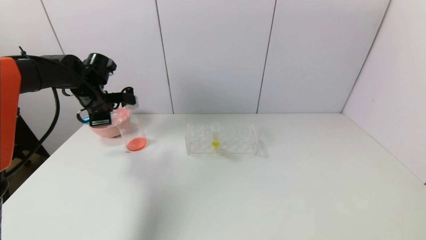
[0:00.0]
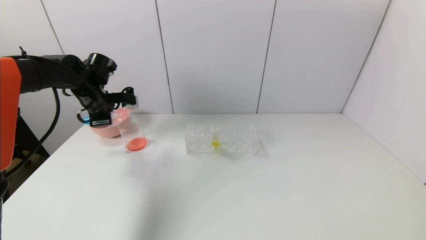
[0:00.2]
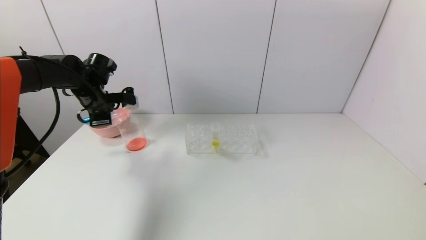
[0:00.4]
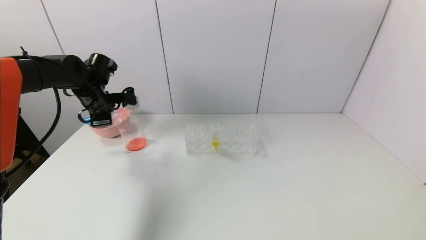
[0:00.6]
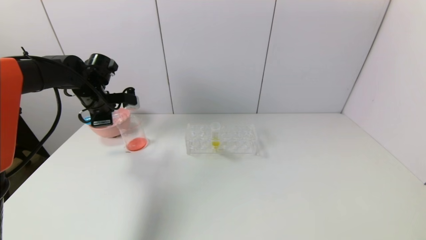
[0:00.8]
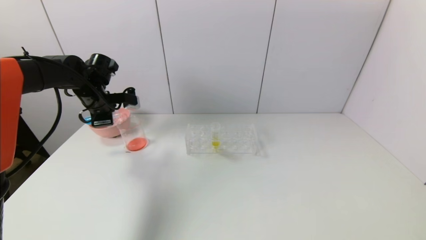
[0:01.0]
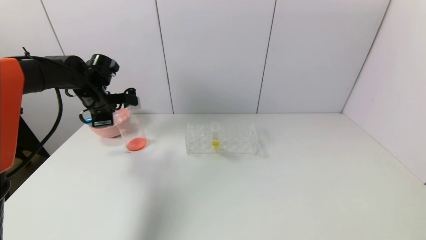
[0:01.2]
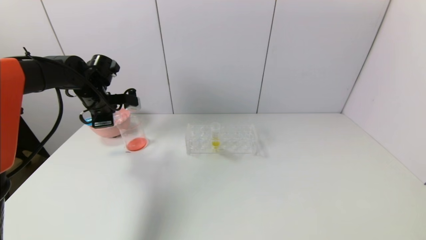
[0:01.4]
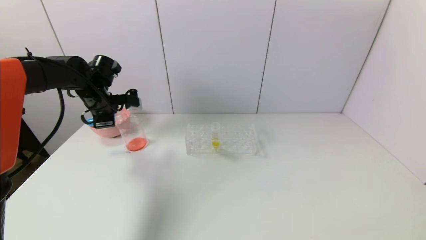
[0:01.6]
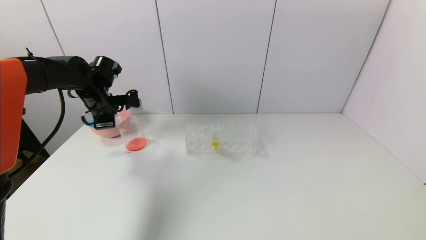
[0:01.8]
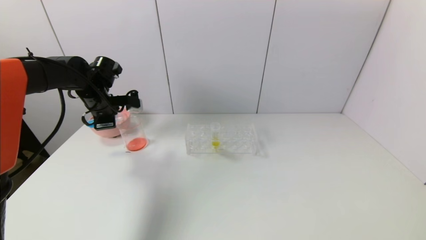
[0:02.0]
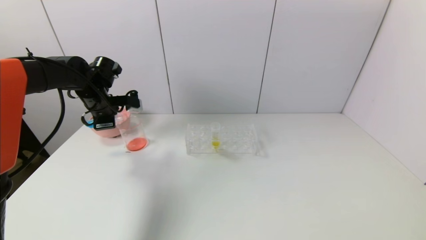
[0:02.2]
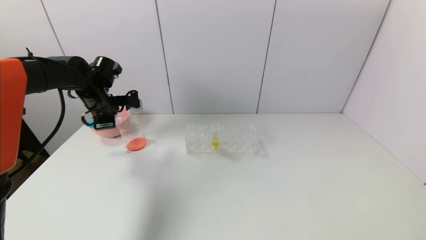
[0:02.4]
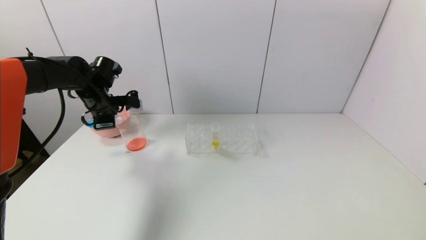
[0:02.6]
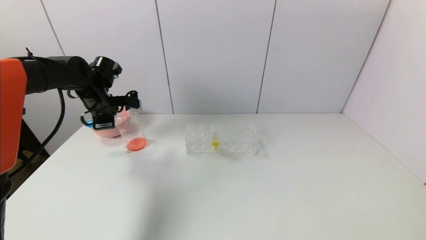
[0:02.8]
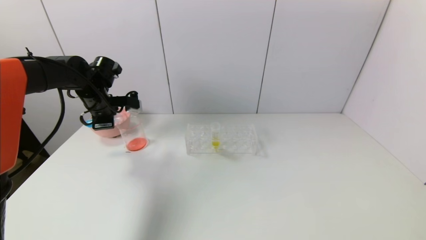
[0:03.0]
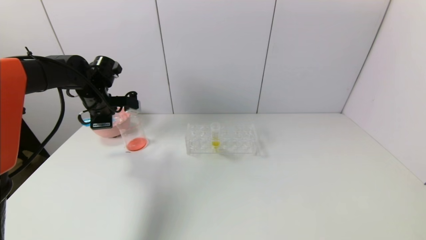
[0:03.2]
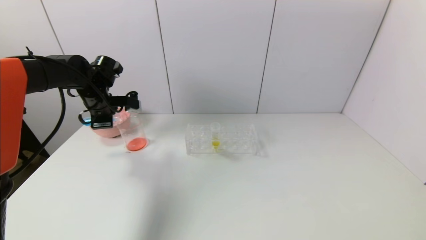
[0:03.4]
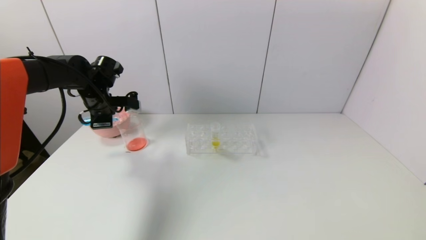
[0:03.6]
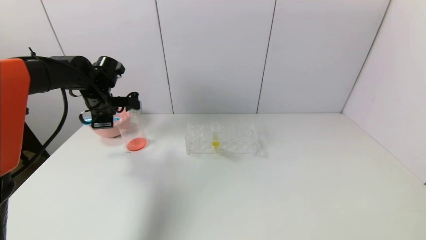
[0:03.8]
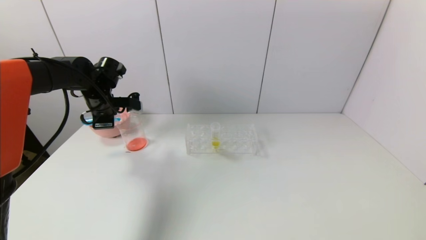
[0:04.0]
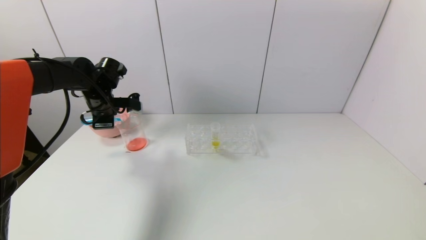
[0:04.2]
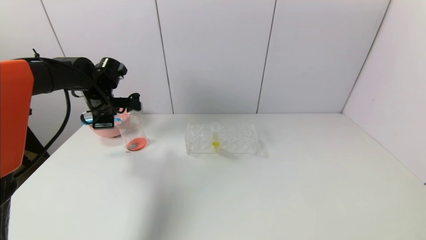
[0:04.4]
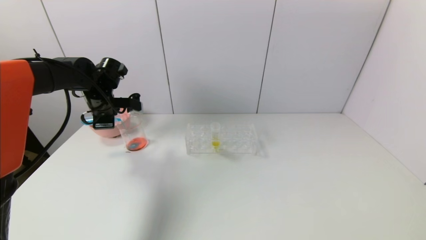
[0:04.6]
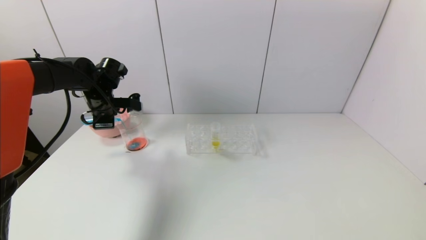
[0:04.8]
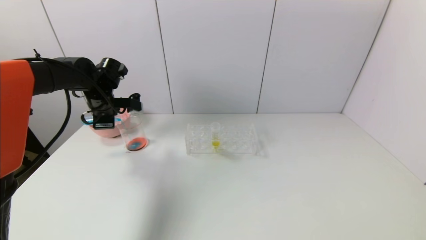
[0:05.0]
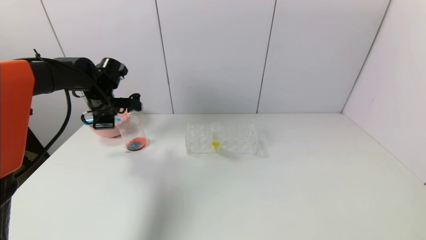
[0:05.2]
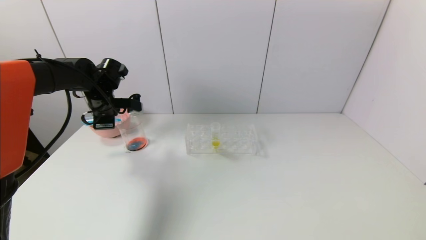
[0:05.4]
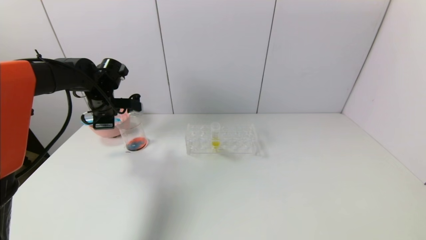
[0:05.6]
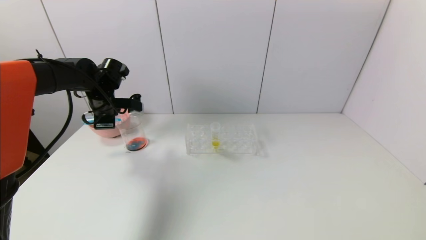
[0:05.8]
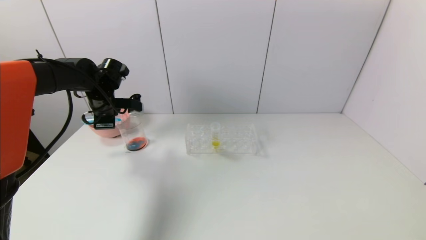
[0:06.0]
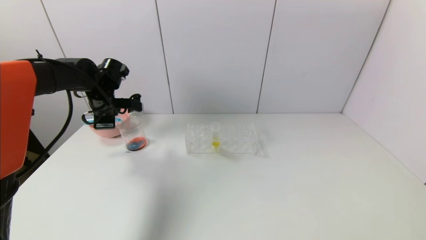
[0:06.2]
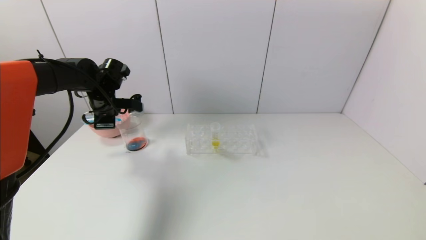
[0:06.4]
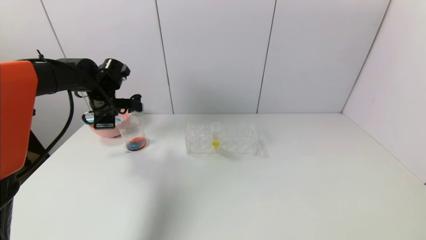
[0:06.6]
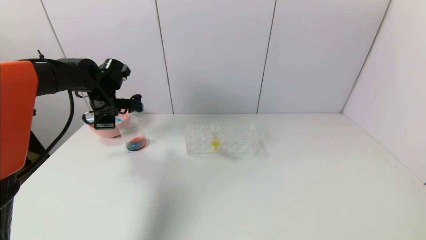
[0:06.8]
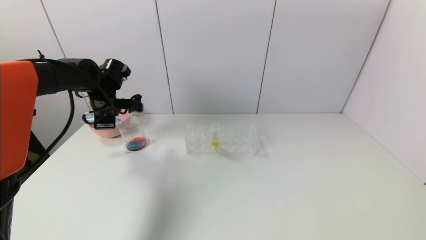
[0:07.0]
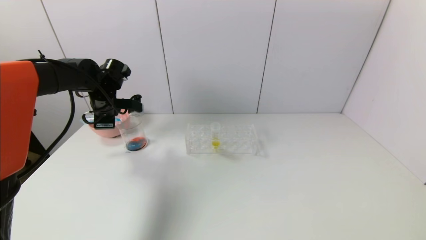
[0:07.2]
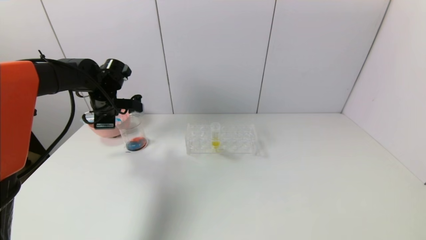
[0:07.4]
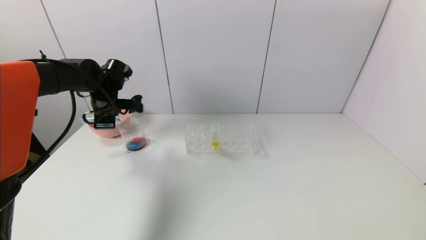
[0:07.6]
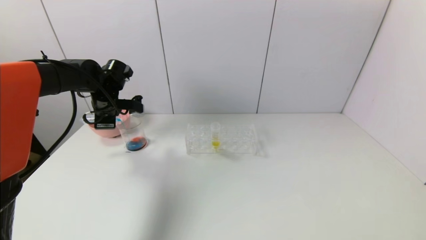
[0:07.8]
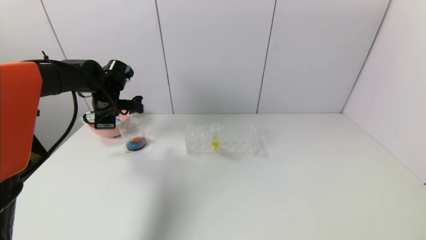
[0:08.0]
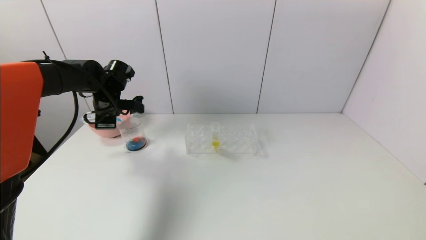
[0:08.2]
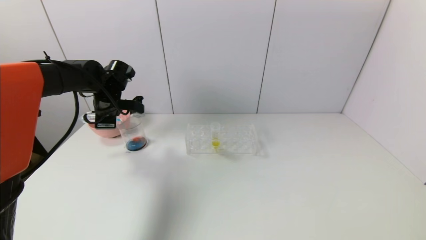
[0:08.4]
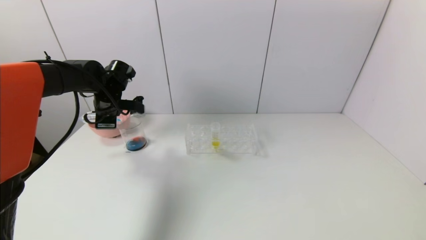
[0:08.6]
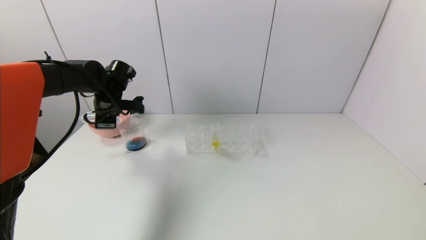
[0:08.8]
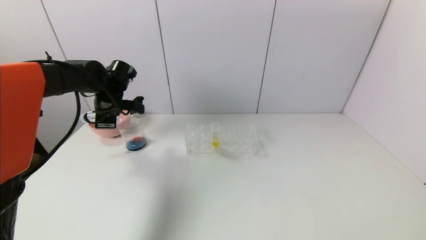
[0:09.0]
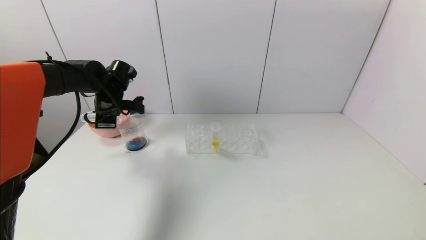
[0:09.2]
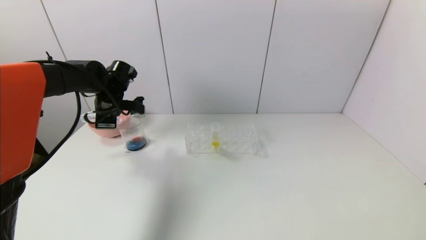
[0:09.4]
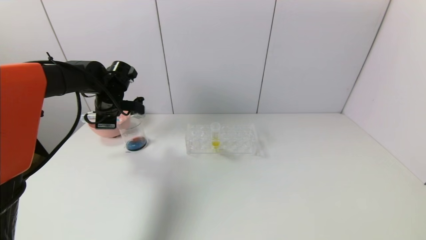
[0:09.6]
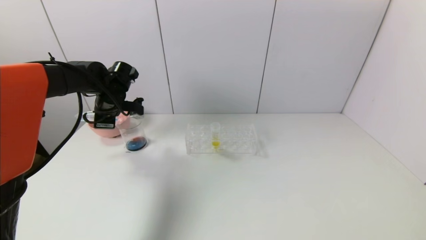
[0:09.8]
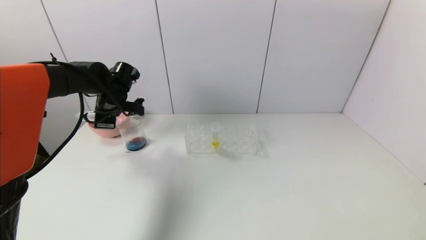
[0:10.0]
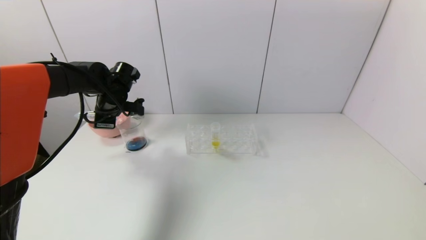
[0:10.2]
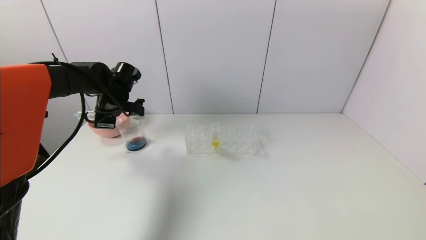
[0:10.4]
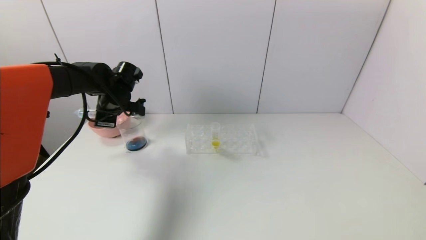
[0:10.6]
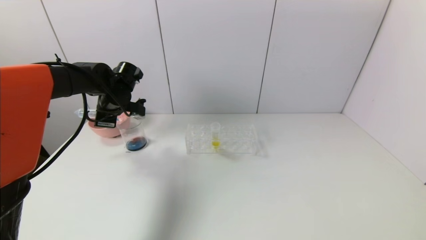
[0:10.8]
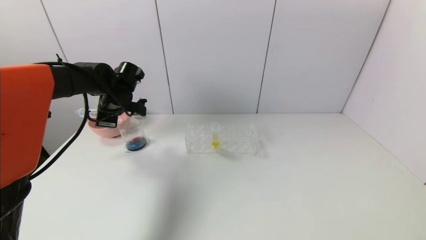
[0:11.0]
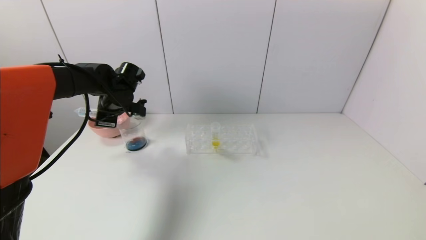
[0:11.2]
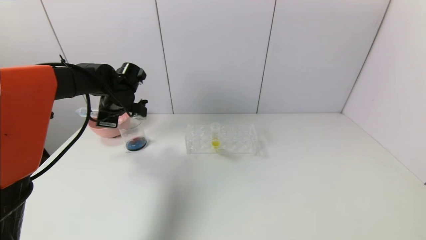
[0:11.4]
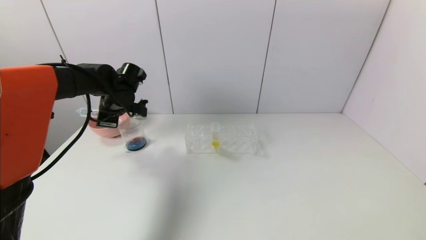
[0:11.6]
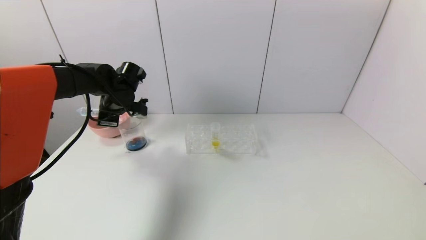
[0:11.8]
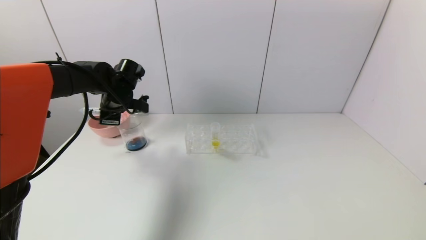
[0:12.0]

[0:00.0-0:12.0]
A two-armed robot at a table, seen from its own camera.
Task of the whole recording: pick up the test tube with red pigment and the test tube with blue pigment by grippers and pour them into the container.
0:00.0 to 0:03.0: Both grippers stay put.
0:03.0 to 0:04.4: The grippers make only small movements.
0:04.4 to 0:07.6: Both grippers stay put.
0:07.6 to 0:09.0: Neither gripper changes place.
0:09.0 to 0:10.4: There are only small adjustments of the grippers.
0:10.4 to 0:12.0: Both grippers stay about where they are.

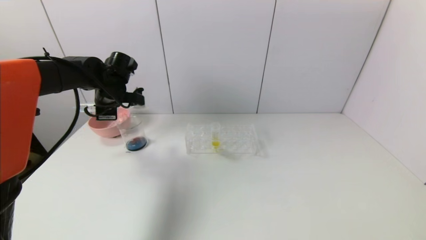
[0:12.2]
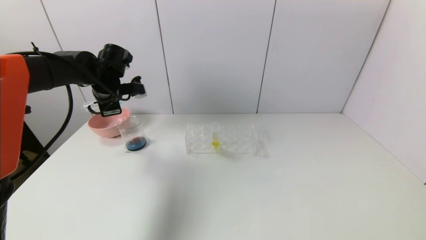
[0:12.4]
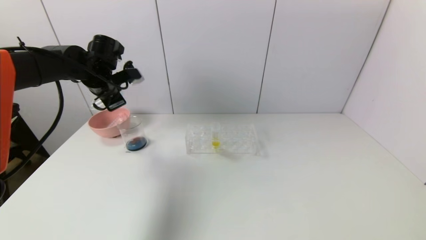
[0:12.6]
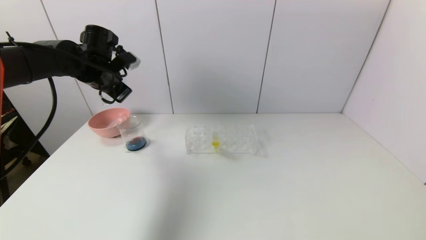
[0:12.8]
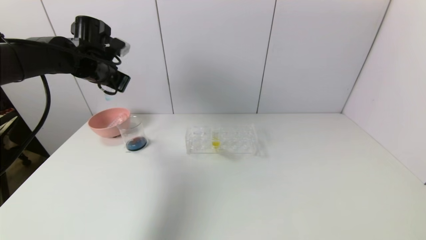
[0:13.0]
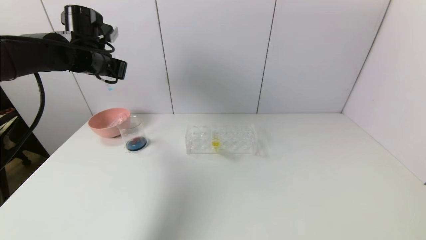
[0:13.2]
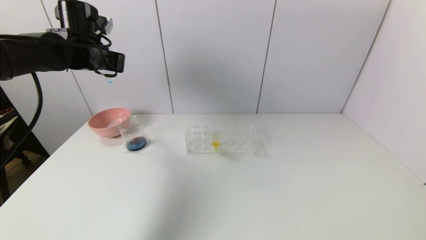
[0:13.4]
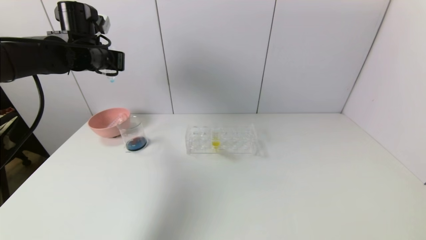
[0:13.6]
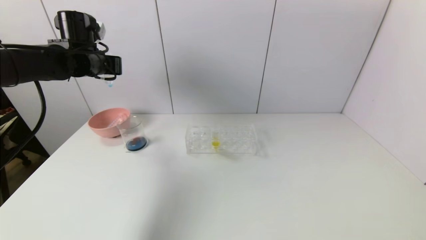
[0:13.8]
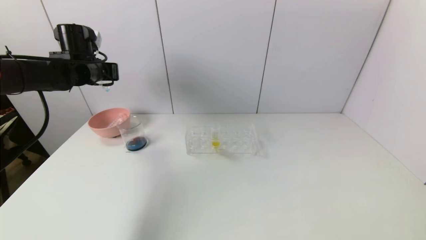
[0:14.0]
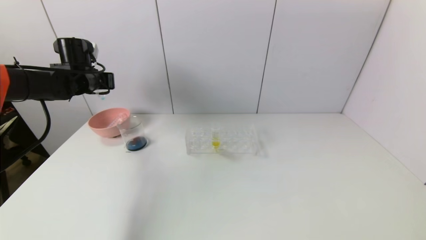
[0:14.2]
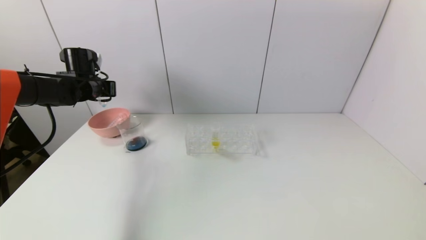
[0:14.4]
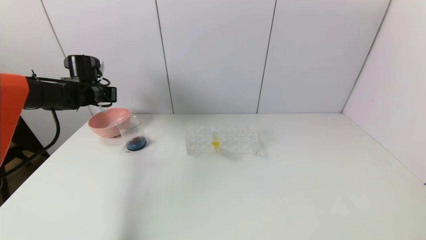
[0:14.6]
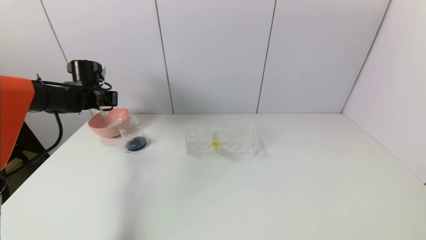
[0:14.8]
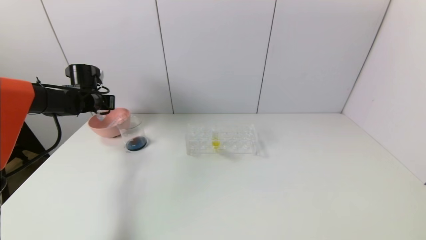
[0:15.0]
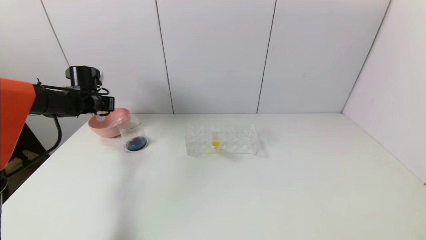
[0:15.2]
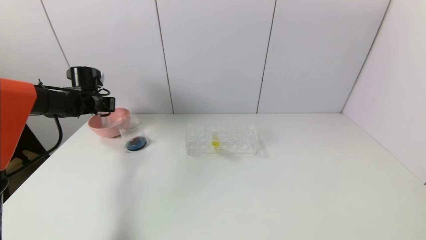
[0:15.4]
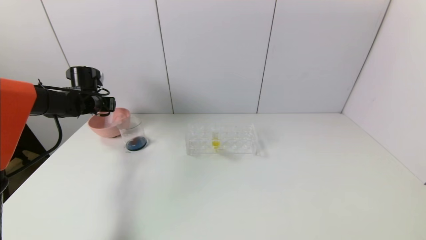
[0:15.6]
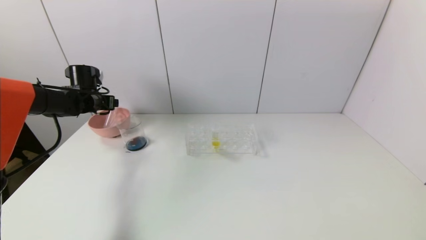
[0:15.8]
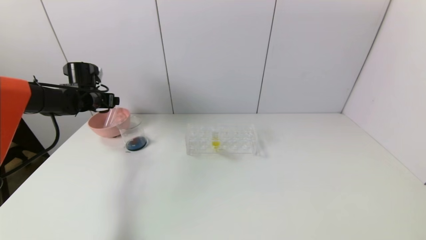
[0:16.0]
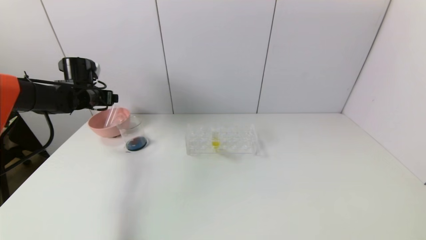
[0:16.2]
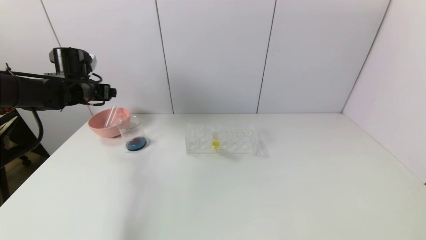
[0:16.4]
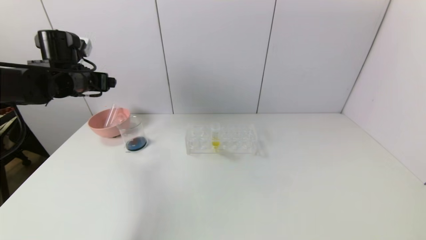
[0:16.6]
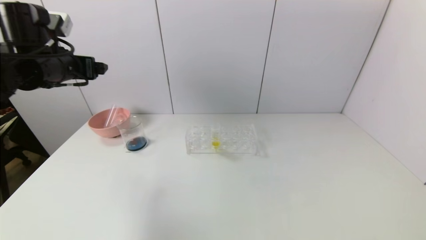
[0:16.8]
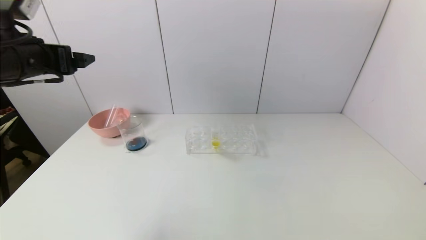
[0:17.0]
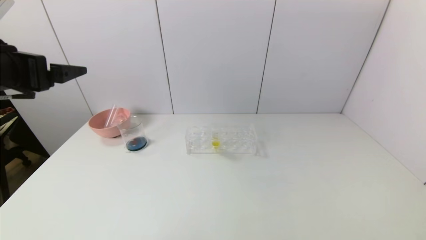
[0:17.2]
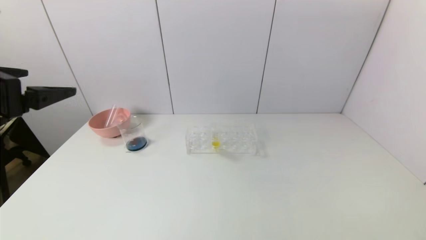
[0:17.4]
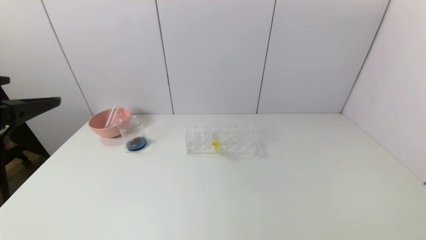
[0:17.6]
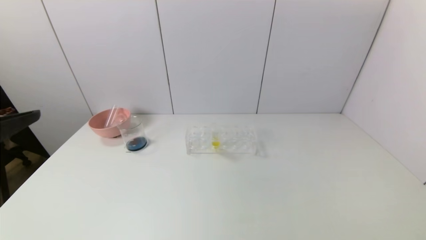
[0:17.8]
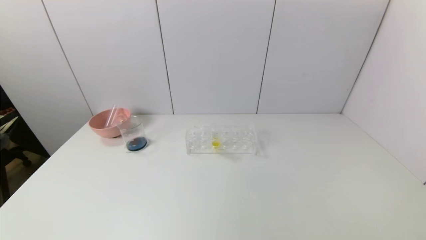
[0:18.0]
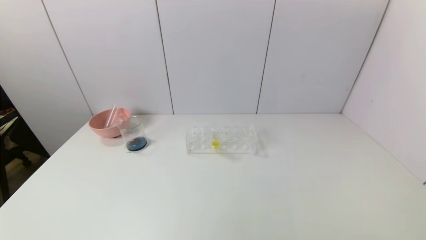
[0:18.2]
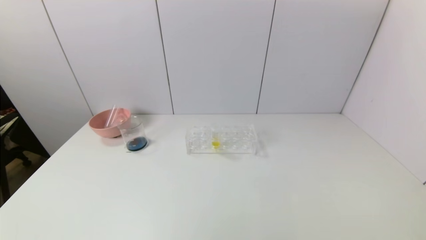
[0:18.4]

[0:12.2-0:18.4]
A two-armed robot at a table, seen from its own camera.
Task of the whole recording: pick up the test tube with red pigment and the test tube with blue pigment by grippers and pour them into the container.
Step, 0:12.8 to 0:16.2: Place the test tube into the bowl with the left gripper.
0:12.2 to 0:13.8: The left gripper heads upward, covering approximately 5 cm.
0:13.8 to 0:15.4: The left gripper is displaced downward and to the left by some 15 cm.
0:15.4 to 0:16.8: The left gripper goes roughly 20 cm backward and upward, and opens its fingers.
0:16.8 to 0:18.4: The left gripper is displaced backward by some 35 cm.
